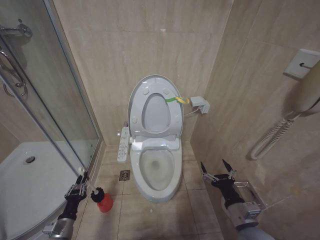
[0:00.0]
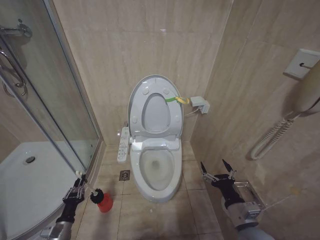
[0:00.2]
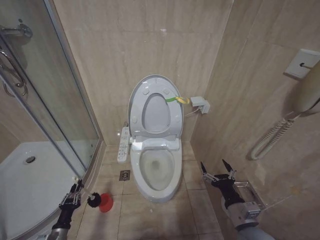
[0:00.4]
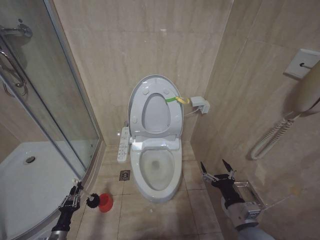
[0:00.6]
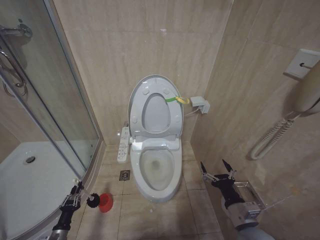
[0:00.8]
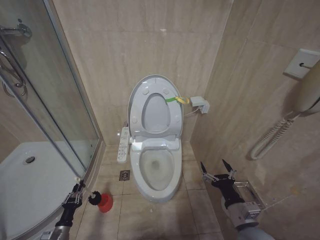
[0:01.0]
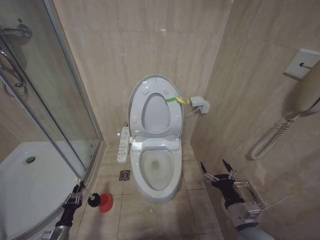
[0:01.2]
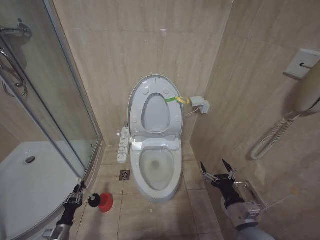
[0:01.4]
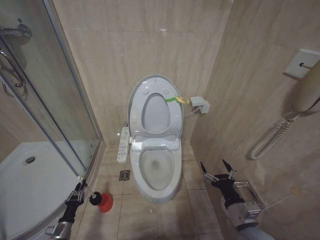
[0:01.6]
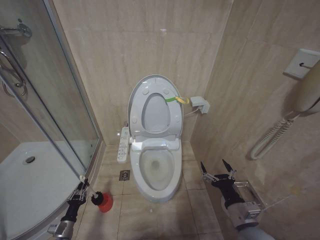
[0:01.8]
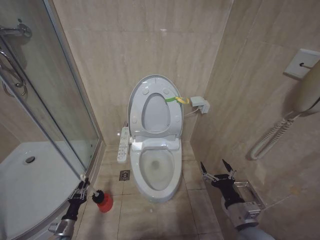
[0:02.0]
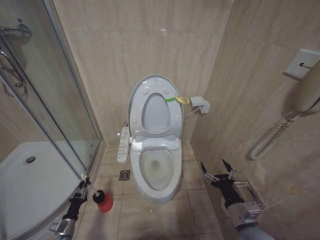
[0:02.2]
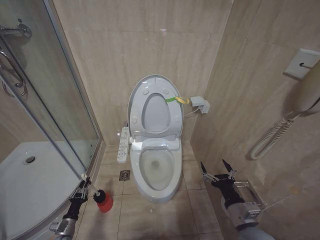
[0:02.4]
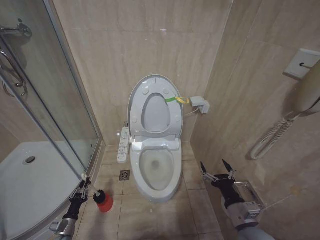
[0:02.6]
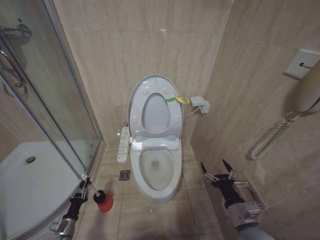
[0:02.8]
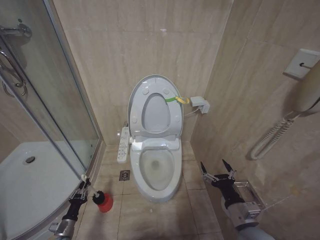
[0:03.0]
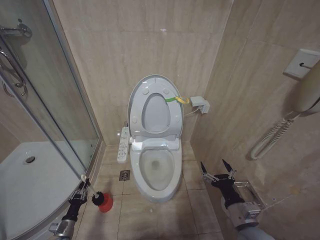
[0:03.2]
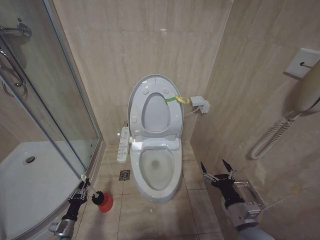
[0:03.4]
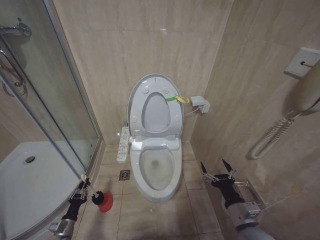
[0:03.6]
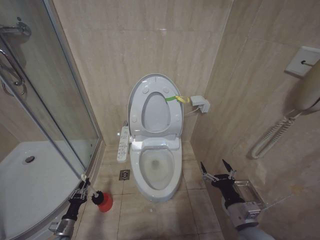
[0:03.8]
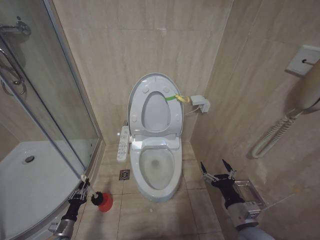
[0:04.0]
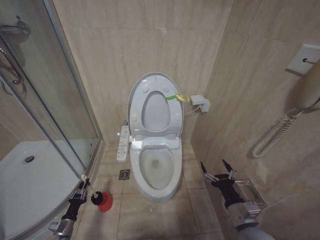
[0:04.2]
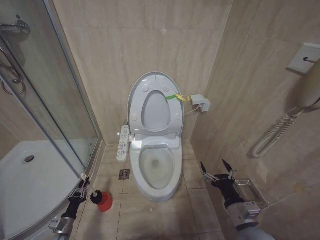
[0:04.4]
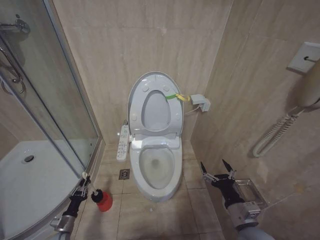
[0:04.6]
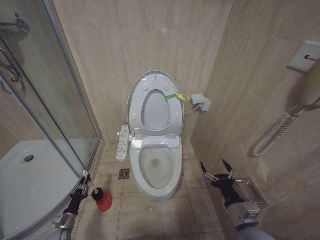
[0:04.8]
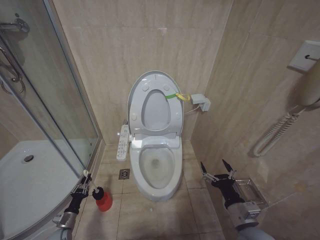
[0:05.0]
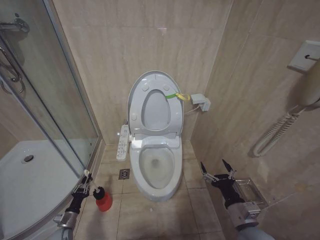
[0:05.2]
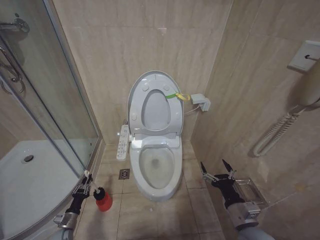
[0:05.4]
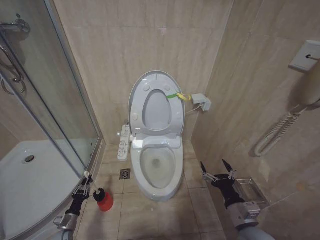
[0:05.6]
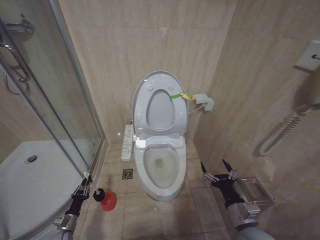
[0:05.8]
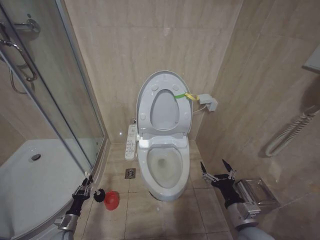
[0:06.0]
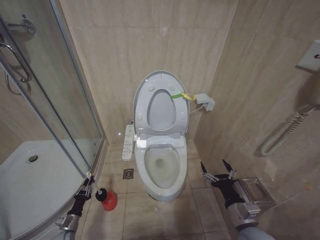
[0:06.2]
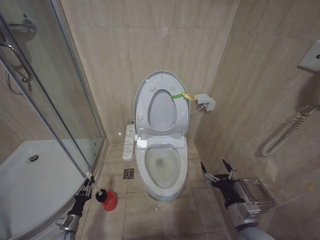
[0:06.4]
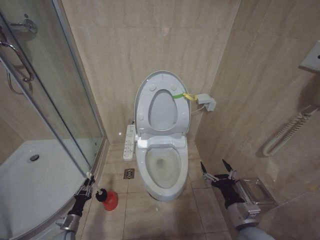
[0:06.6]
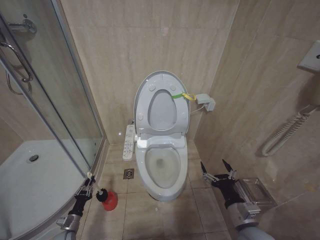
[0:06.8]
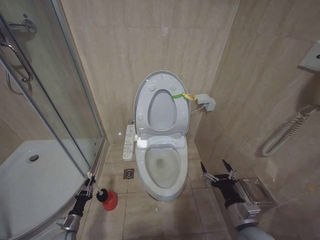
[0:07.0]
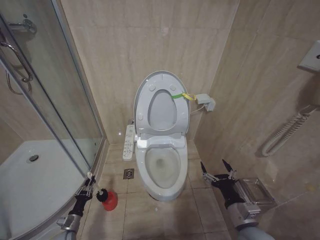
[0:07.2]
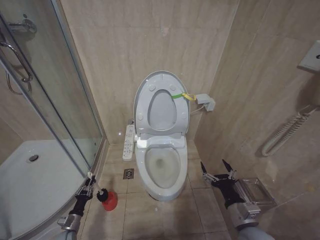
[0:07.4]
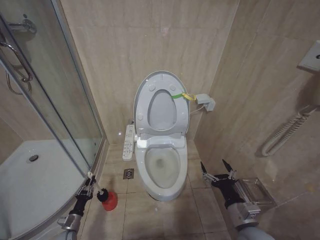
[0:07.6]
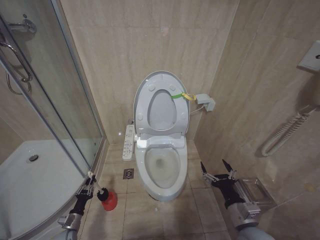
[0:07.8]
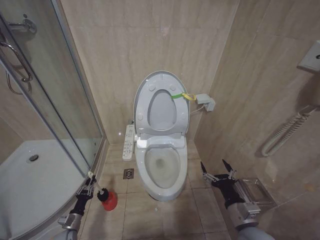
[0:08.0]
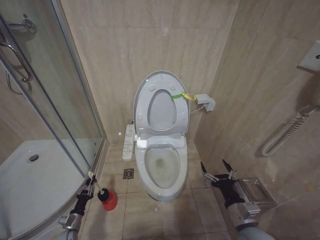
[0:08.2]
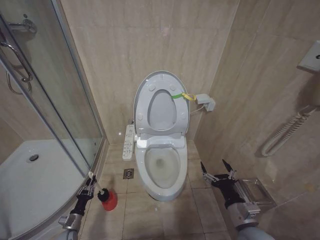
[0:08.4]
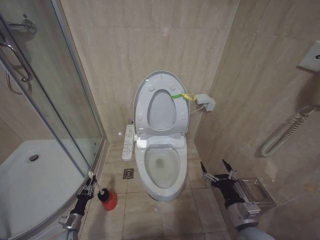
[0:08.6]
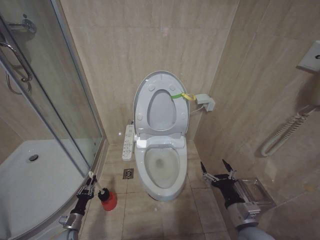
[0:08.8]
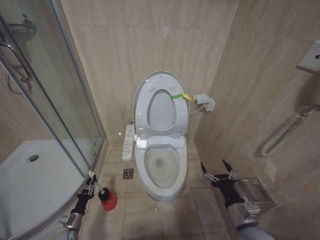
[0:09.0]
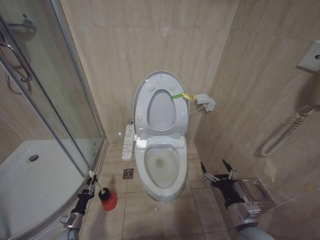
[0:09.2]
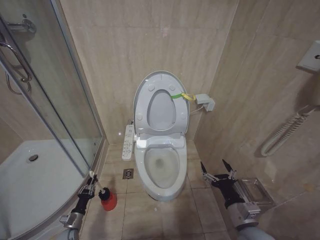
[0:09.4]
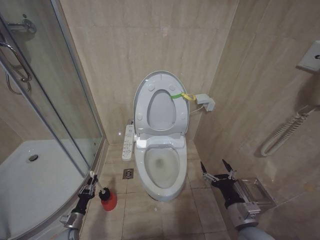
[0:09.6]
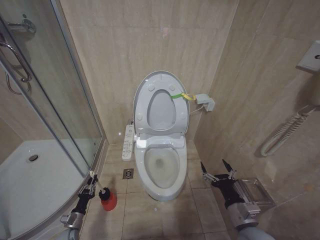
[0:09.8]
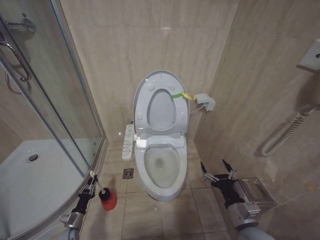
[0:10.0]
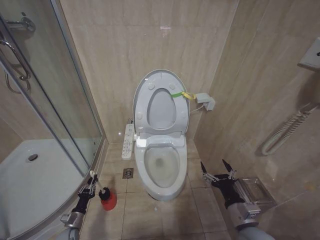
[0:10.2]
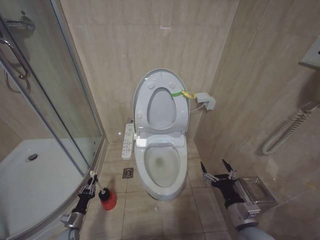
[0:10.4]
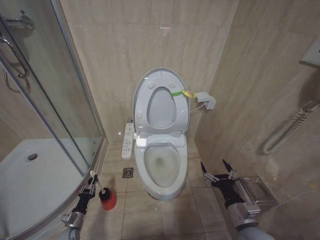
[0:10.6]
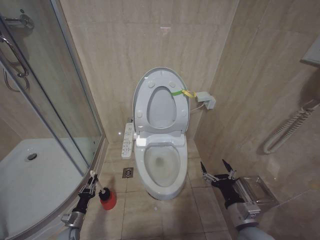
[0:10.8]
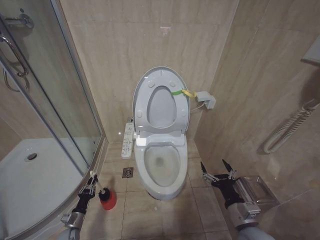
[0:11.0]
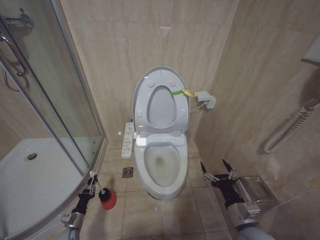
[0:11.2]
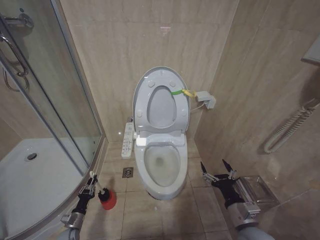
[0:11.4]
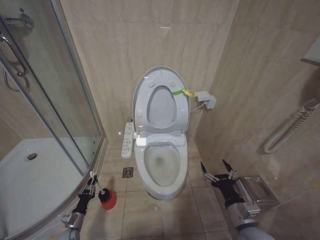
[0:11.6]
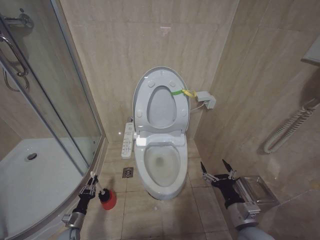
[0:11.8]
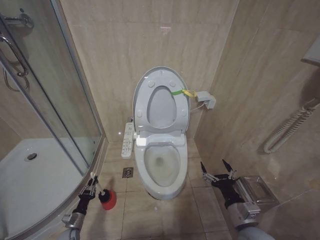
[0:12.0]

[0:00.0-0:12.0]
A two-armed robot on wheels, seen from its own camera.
Task of the whole recording: Open the toilet lid, clean the toilet bowl with a toilet brush, close the toilet lid, and flush.
0:00.0 to 0:01.6: The left gripper moves downward and to the left, some 15 cm.
0:03.0 to 0:04.4: The two grippers keep their place.
0:04.4 to 0:07.6: The grippers move only a little.
0:07.6 to 0:10.4: Both grippers stay about where they are.
0:10.4 to 0:12.0: Both grippers stay about where they are.

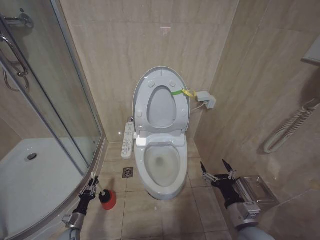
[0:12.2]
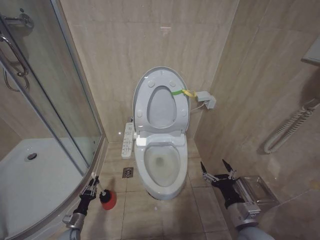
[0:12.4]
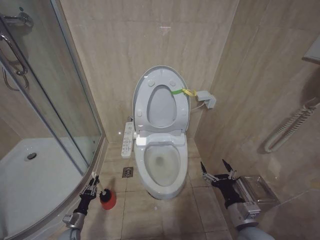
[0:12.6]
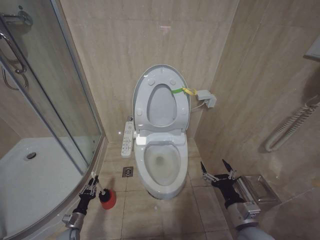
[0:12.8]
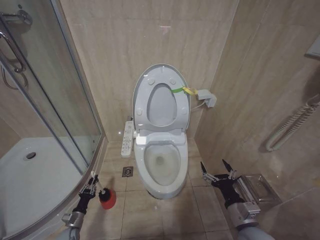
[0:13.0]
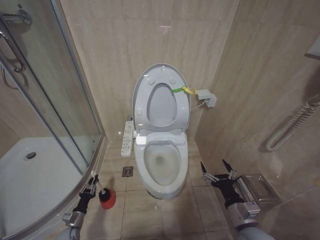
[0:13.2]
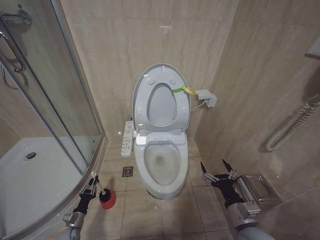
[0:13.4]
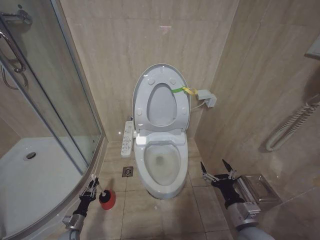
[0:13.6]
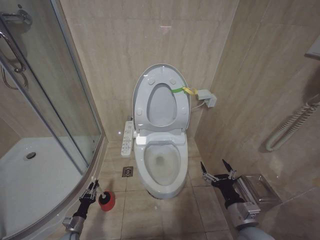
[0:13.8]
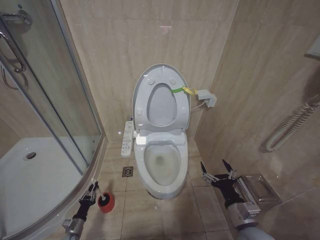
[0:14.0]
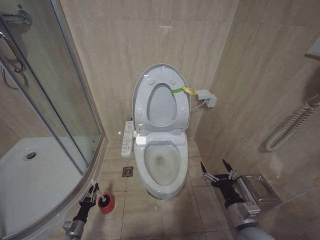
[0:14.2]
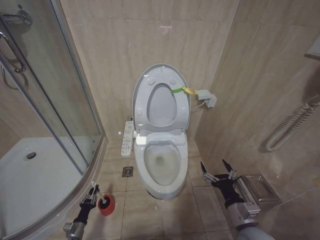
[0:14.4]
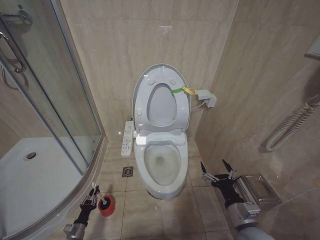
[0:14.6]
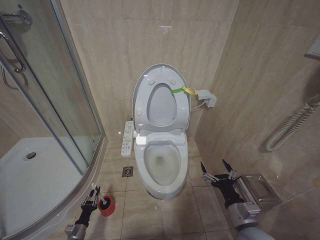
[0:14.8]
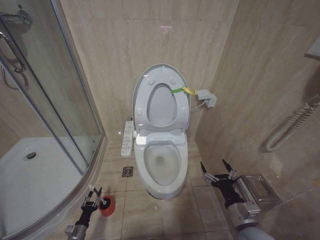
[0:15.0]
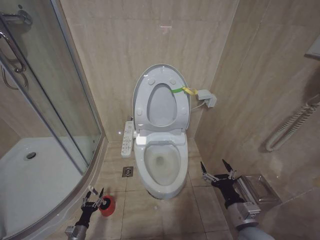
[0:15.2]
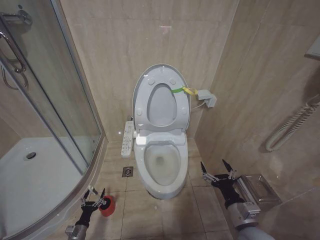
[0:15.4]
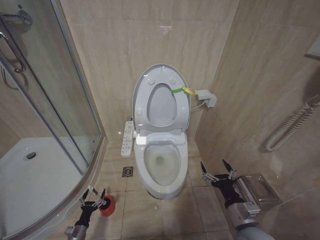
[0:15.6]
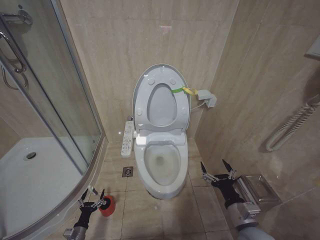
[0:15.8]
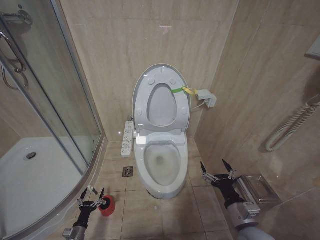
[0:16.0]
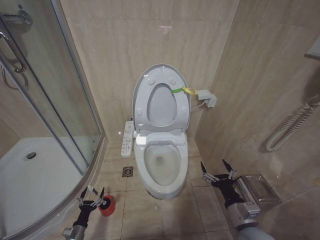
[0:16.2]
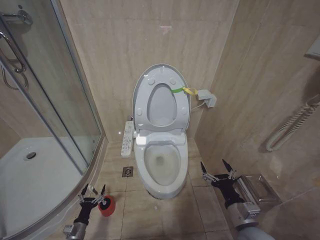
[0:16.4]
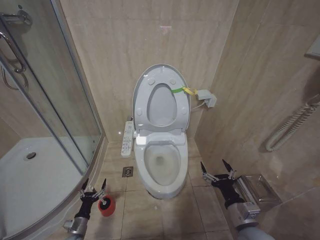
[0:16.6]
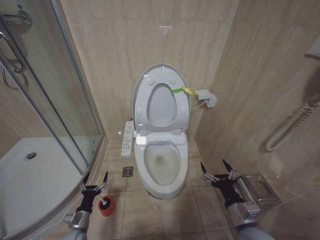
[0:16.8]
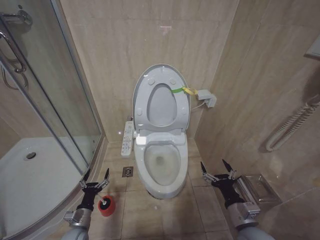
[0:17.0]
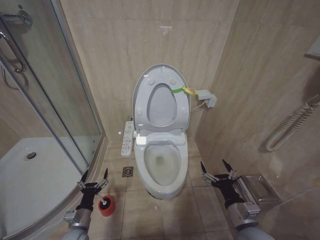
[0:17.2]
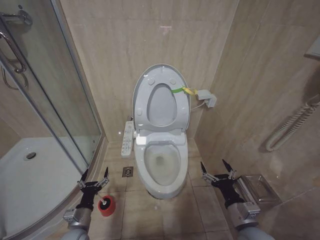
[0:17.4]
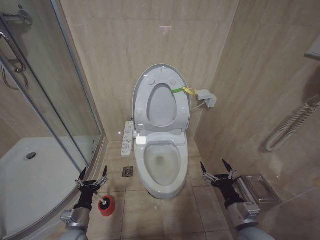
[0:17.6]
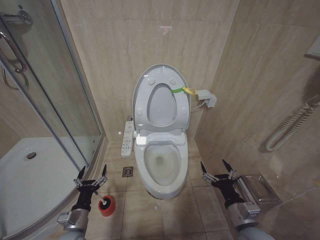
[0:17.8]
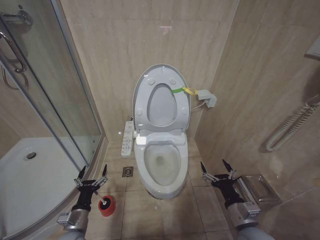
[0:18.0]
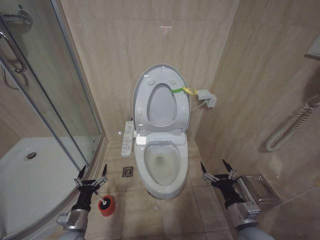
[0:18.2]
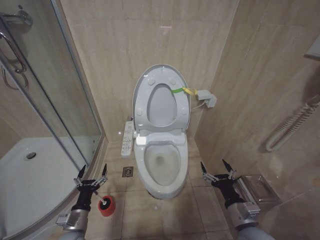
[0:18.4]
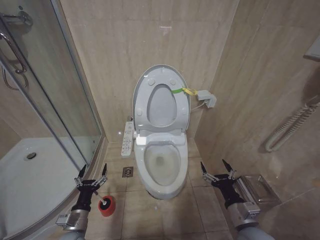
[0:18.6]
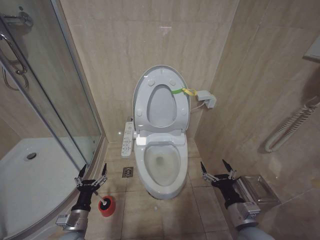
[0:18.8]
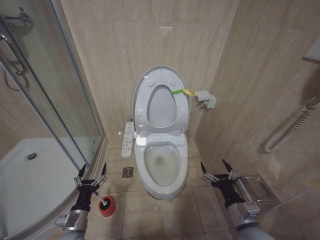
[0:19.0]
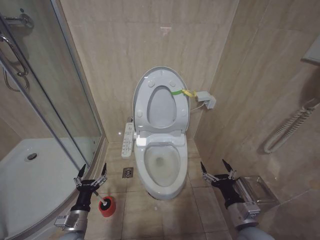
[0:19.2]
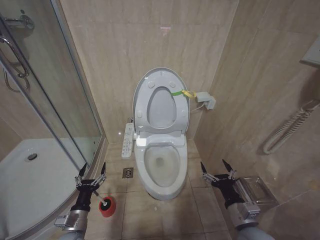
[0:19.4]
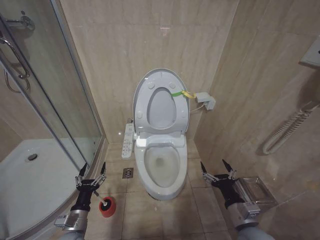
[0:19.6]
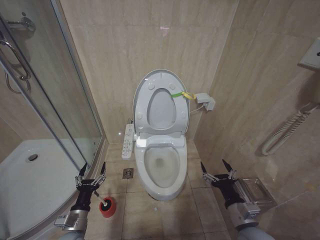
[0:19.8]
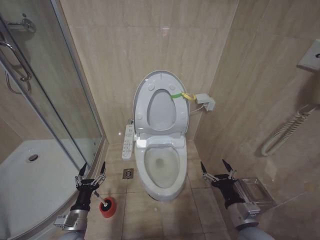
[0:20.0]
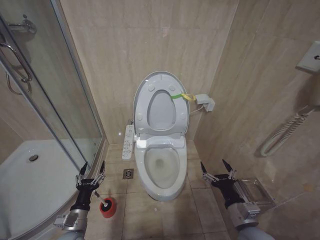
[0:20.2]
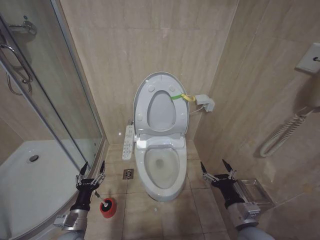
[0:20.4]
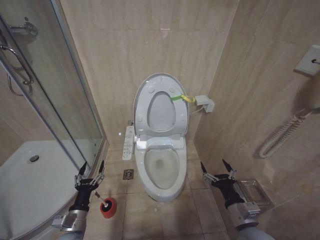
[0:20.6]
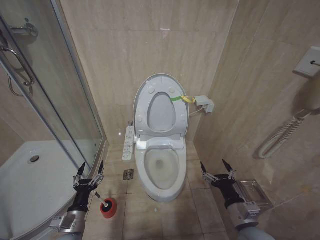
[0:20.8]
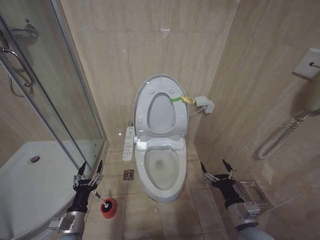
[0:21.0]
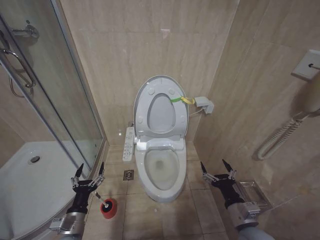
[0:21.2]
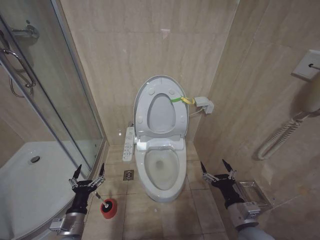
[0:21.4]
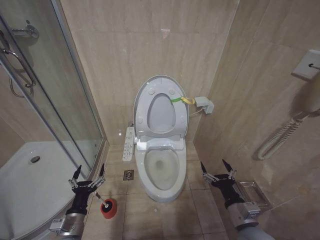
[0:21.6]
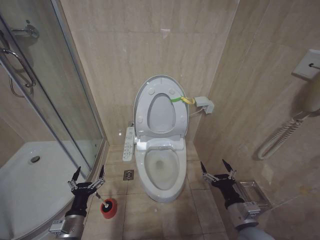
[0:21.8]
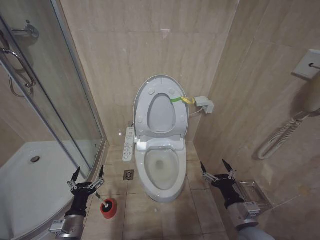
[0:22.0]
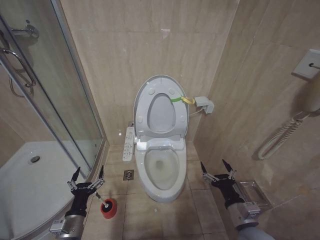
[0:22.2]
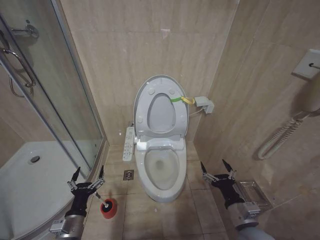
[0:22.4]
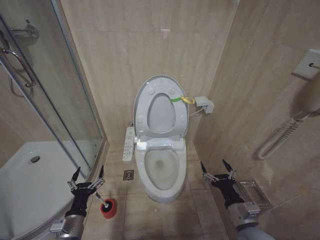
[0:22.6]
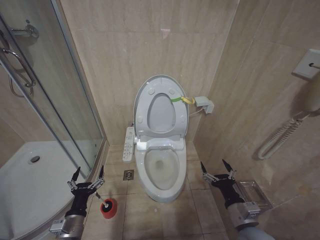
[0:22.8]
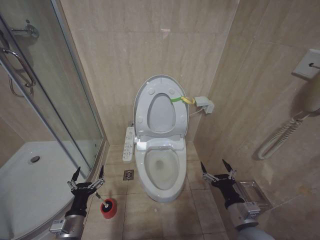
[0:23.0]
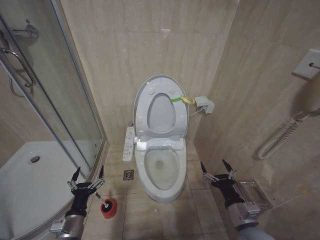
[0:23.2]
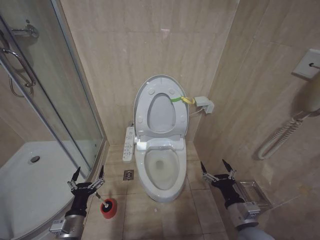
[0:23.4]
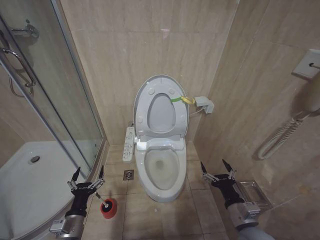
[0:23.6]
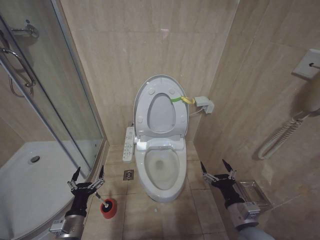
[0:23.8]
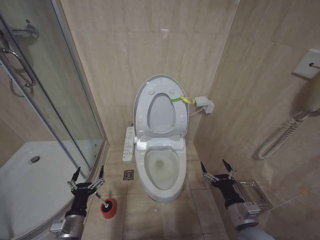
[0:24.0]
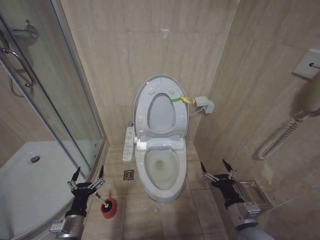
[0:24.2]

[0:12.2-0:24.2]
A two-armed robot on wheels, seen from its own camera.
Task of the whole recording: Open the toilet lid, clean the toilet bowl with a toilet brush, close the toilet lid, and flush.
0:12.2 to 0:13.8: The two grippers keep their place.
0:13.8 to 0:15.2: The grippers stay close to where they were, moving slightly.
0:15.2 to 0:16.6: The left gripper heads upward, covering about 5 cm, and opens up.
0:16.6 to 0:18.2: The left gripper goes about 20 cm upward and to the right.
0:18.2 to 0:19.8: Both grippers stay about where they are.
0:19.8 to 0:22.6: The grippers stay close to where they were, moving slightly.
0:22.6 to 0:24.2: The two grippers keep their place.
